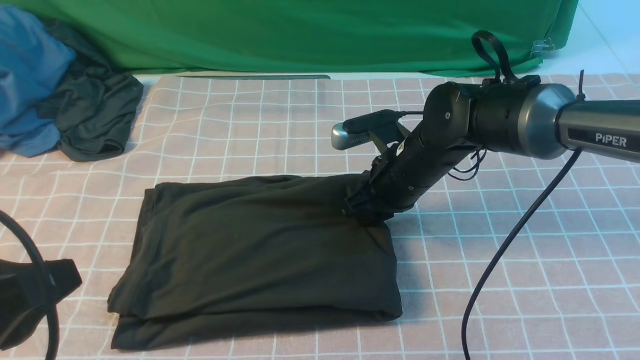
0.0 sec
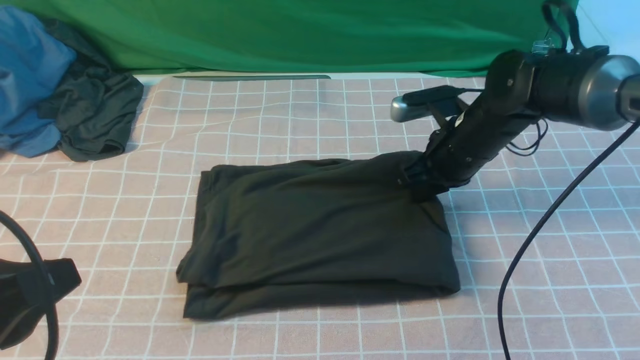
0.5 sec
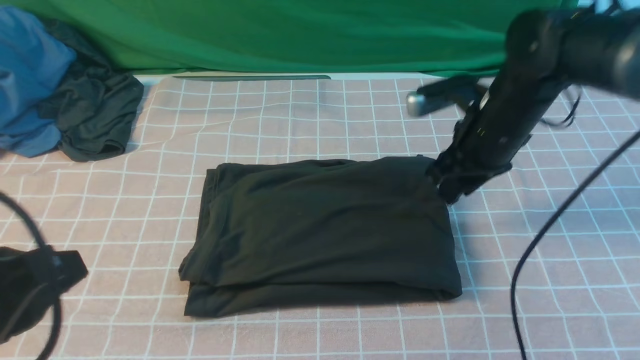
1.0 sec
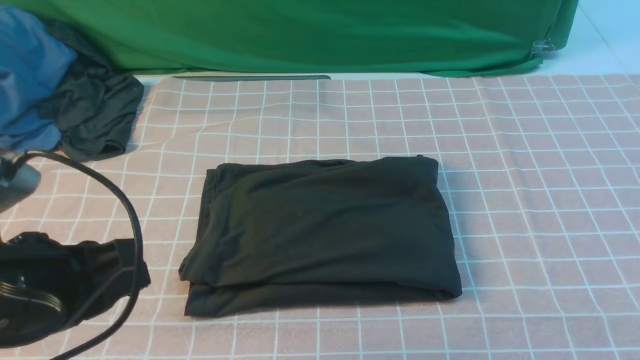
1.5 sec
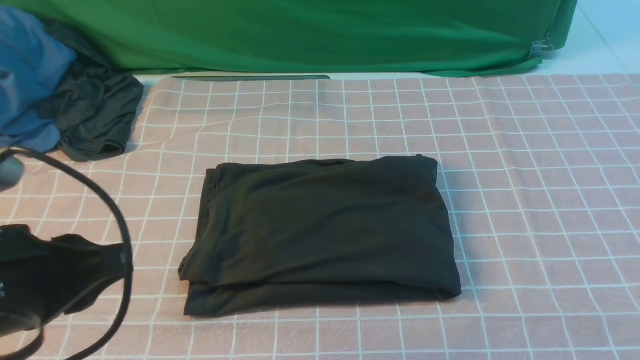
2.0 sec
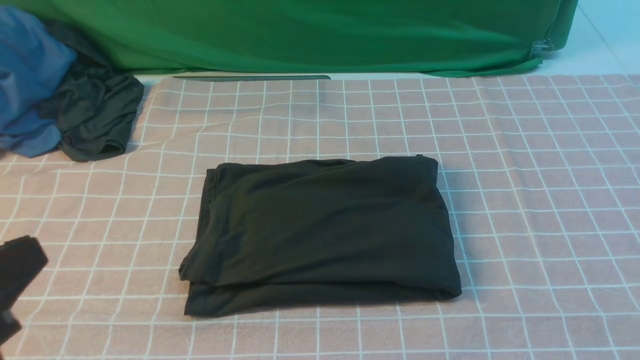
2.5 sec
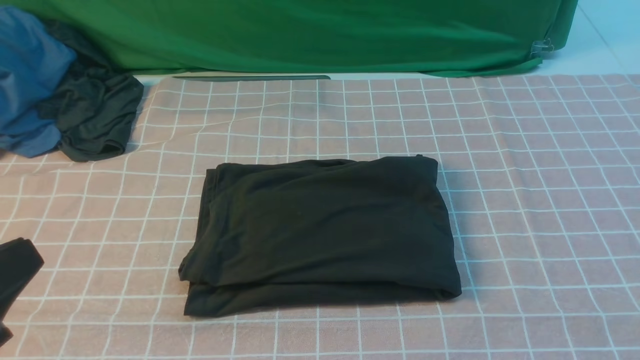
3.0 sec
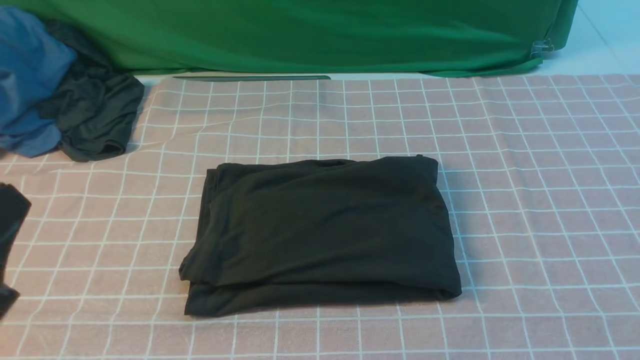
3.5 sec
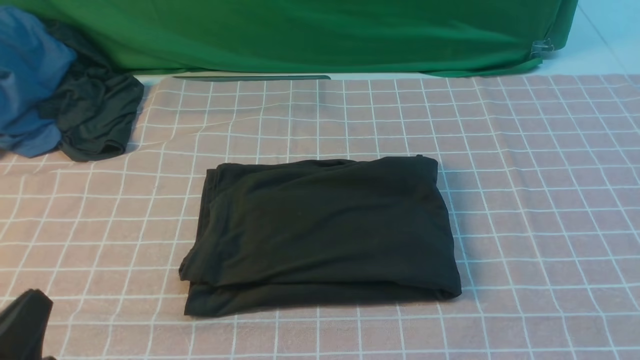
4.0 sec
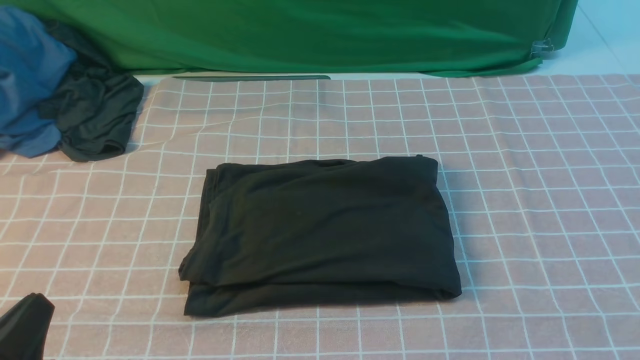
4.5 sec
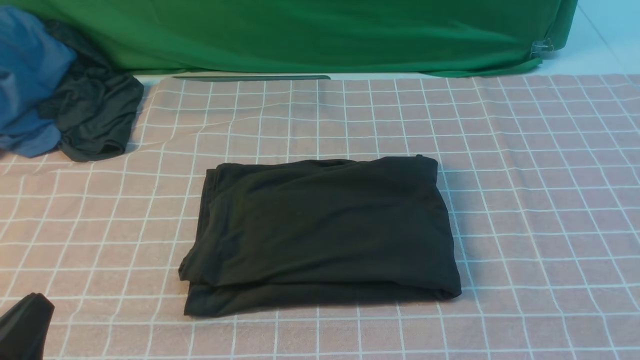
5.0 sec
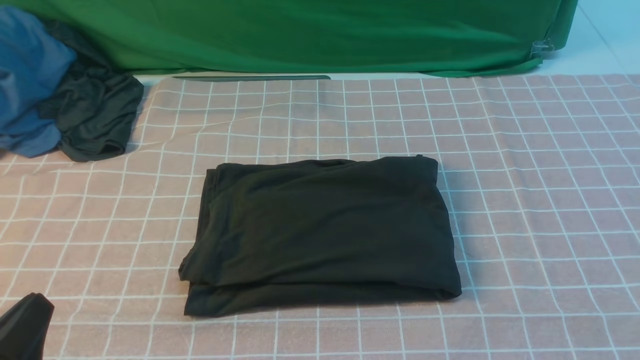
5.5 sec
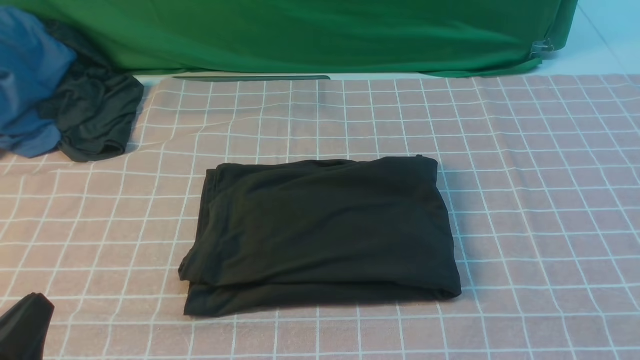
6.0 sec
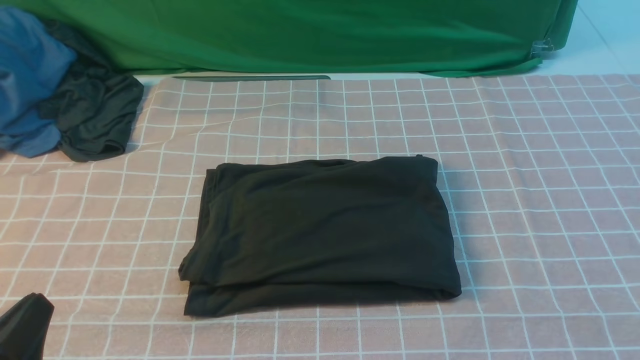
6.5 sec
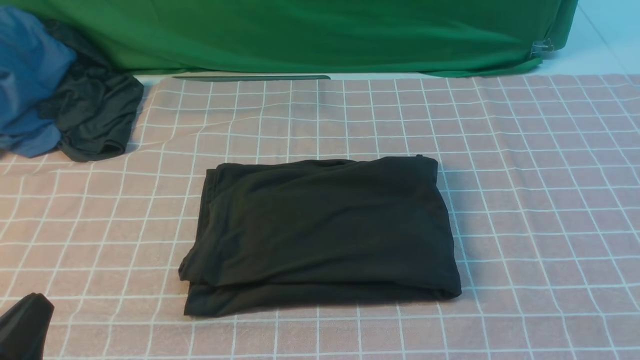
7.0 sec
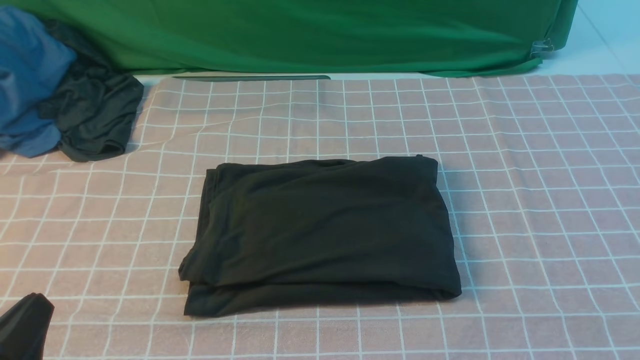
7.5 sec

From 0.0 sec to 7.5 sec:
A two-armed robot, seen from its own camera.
From 0.0 sec to 2.0 sec: The right gripper is displaced backward, upward and to the right by some 50 cm.
From 2.0 sec to 4.0 sec: The left gripper is displaced downward and backward by approximately 10 cm.

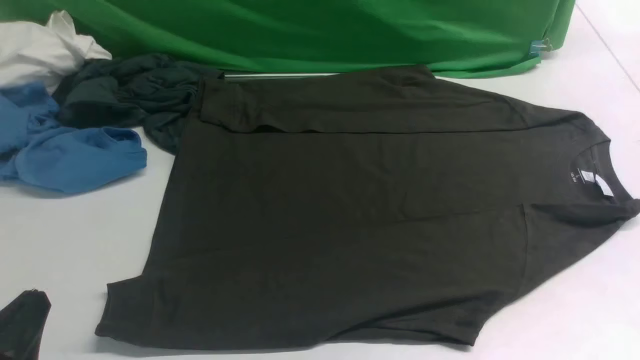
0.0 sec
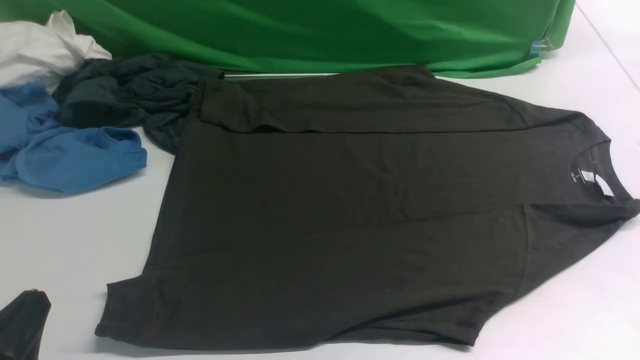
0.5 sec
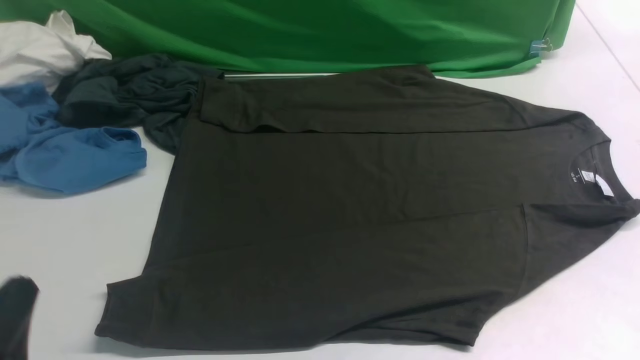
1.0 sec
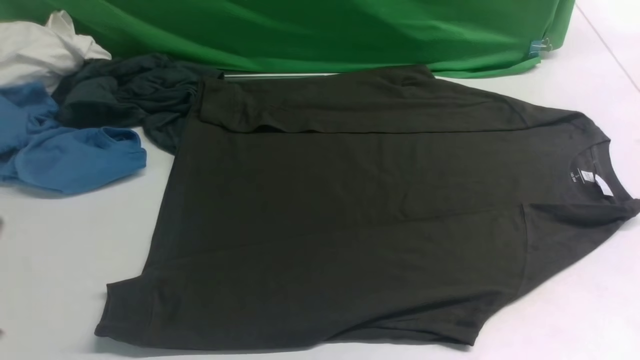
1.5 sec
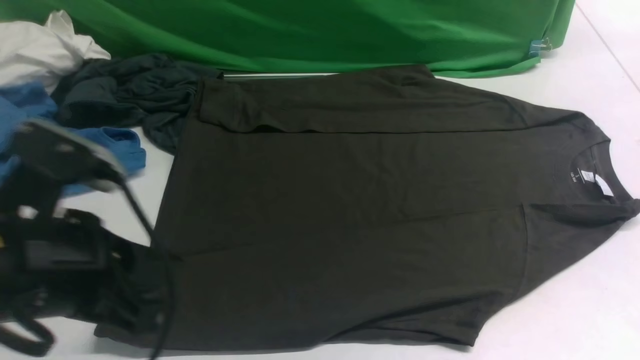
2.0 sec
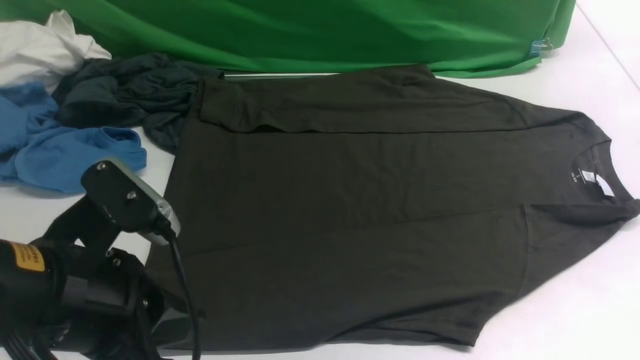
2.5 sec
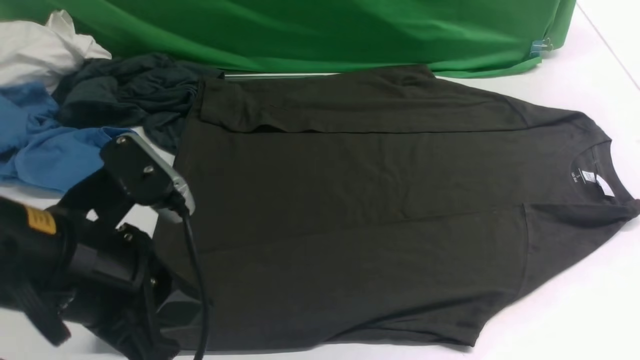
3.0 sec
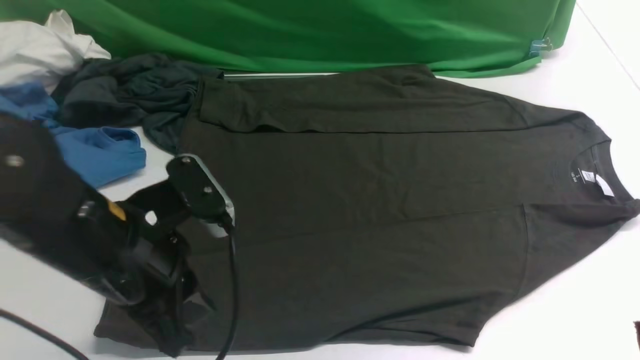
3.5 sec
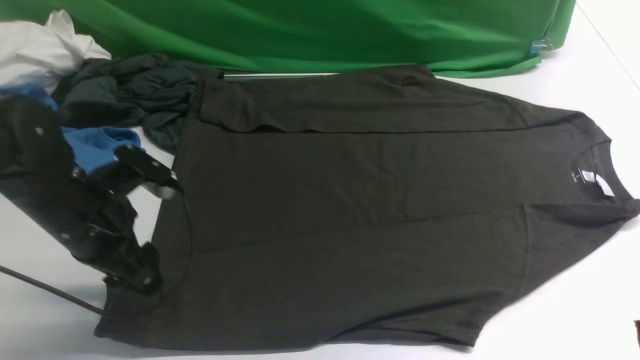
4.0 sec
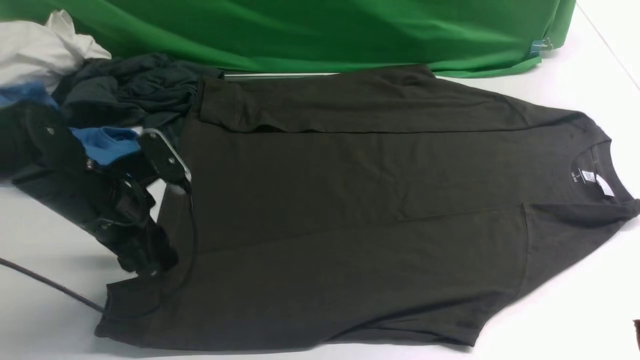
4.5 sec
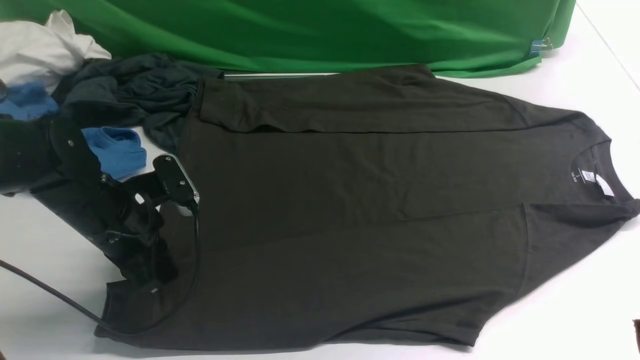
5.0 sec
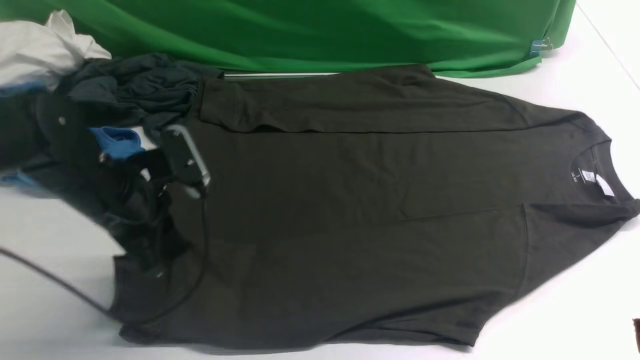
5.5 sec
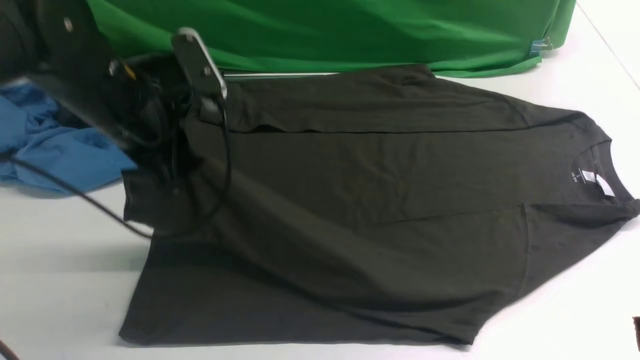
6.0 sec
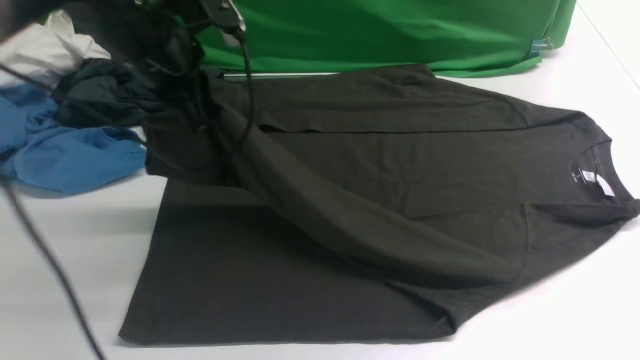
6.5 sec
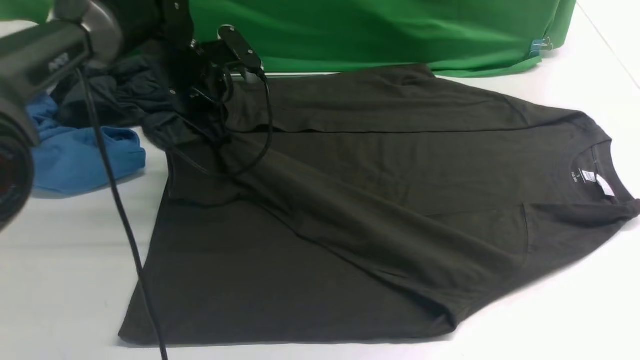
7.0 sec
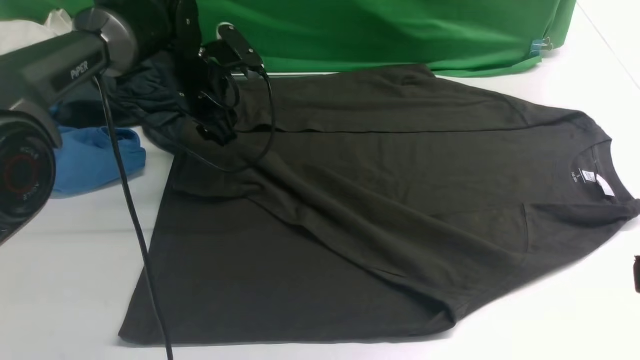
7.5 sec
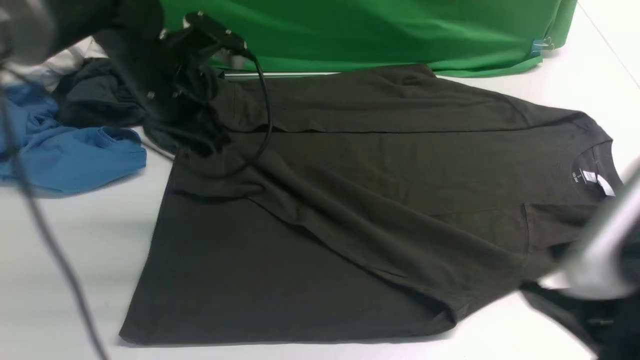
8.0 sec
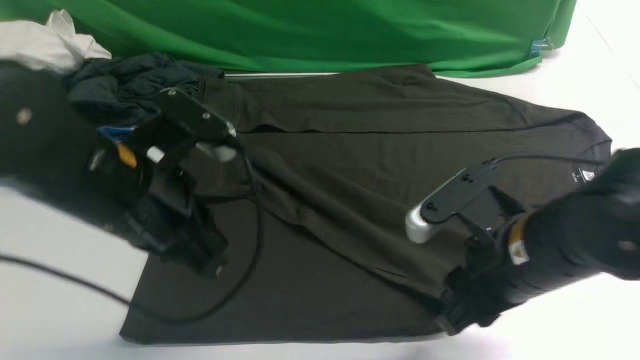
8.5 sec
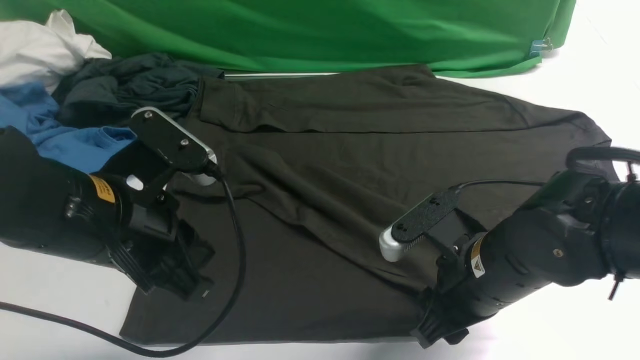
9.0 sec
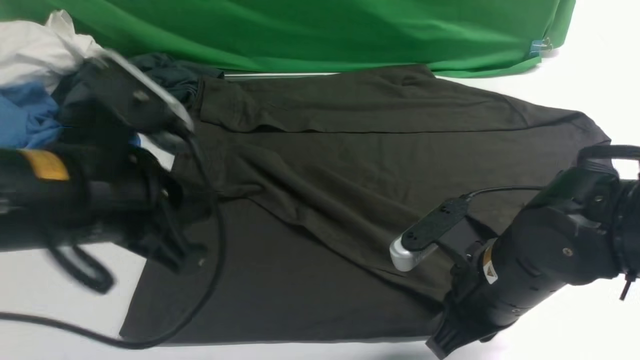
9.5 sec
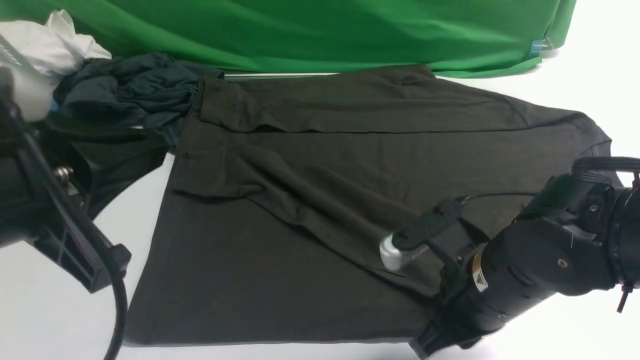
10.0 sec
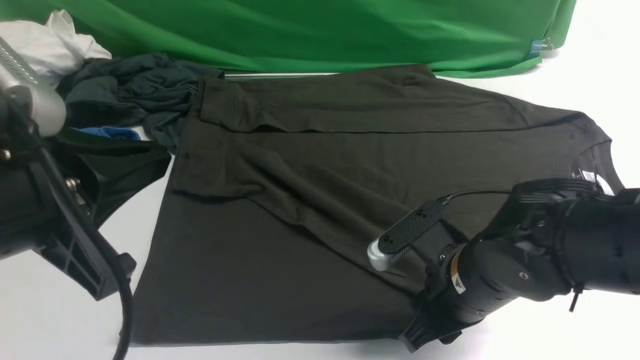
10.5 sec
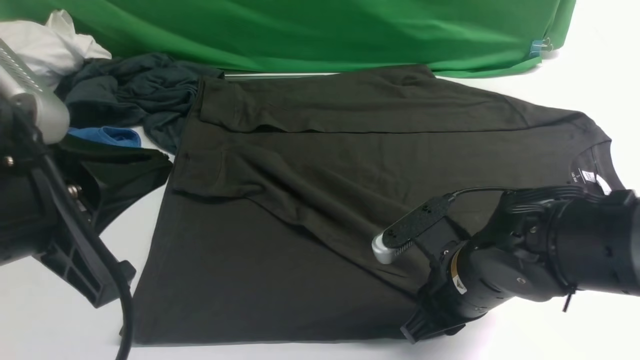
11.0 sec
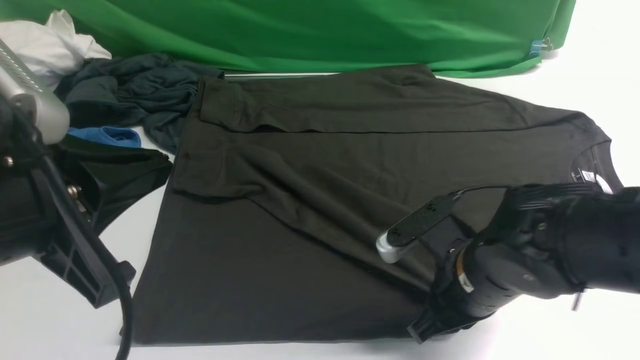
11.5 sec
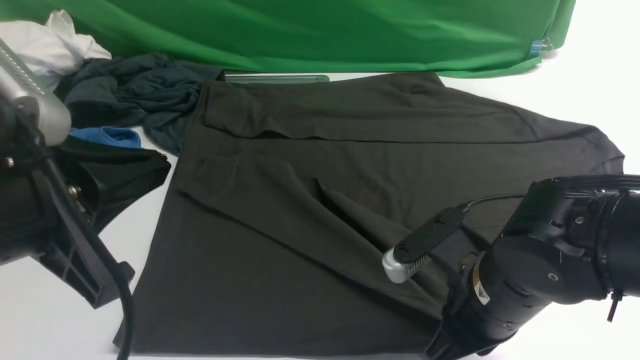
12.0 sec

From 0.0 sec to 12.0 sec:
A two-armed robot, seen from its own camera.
Step, from 0.0 sec to 5.5 sec: use the left arm to clamp the cuff closest to it.
Step, from 6.0 sec to 7.5 sec: use the left arm to drag and place the cuff at the centered position on the left edge of the fabric.
From 0.0 sec to 2.0 sec: The left gripper moves upward, forward and to the right, some 15 cm.
From 2.0 sec to 4.0 sec: The left gripper is displaced forward and downward by approximately 15 cm, and opens its fingers.
From 4.0 sec to 6.0 sec: The left gripper is displaced upward and forward by some 10 cm, and closes.
From 6.0 sec to 8.0 sec: The left gripper reaches about 15 cm forward, then returns, and opens and closes again. The right gripper is displaced to the left, forward and downward by about 10 cm.
From 8.0 sec to 10.0 sec: The right gripper moves downward and forward, some 15 cm, and closes, then opens again. The left gripper moves backward, approximately 25 cm.
From 10.0 sec to 12.0 sec: There are only small adjustments of the grippers.
